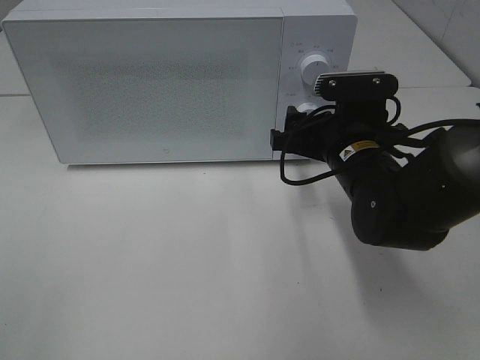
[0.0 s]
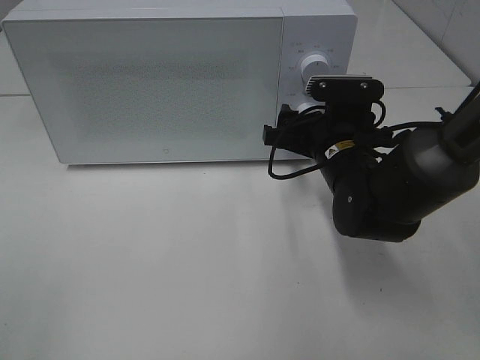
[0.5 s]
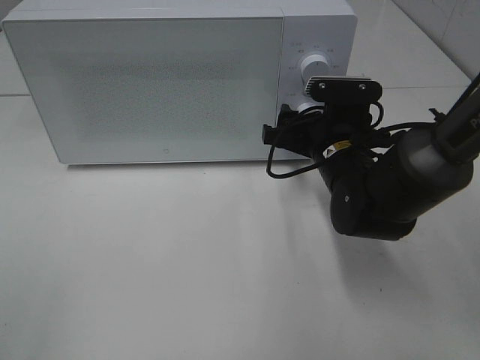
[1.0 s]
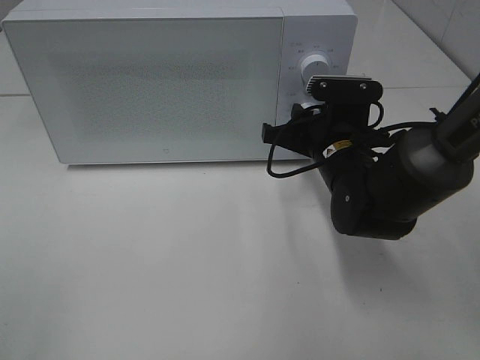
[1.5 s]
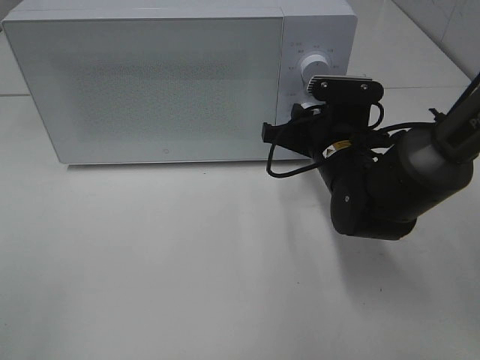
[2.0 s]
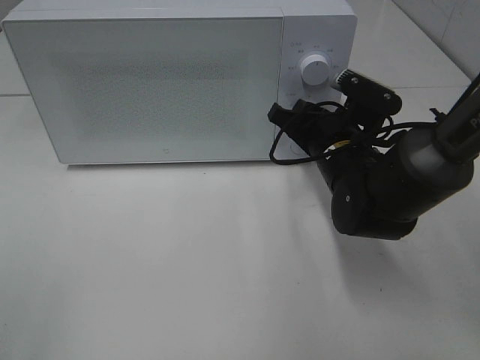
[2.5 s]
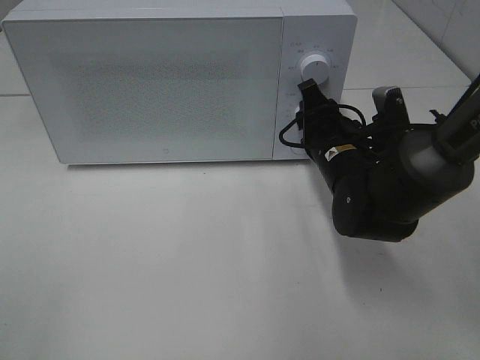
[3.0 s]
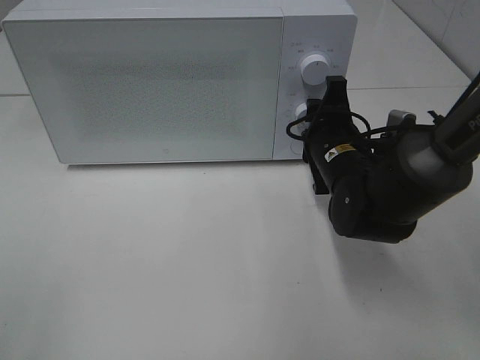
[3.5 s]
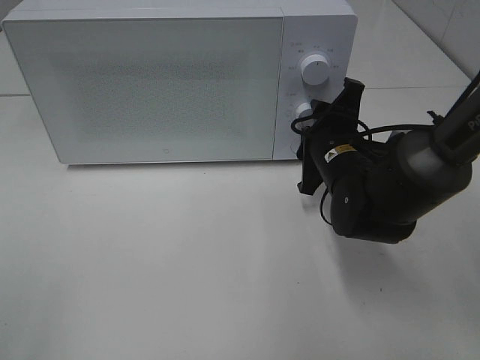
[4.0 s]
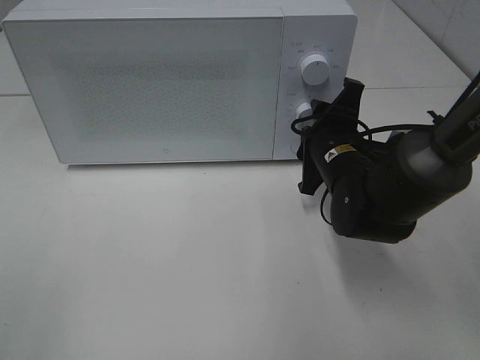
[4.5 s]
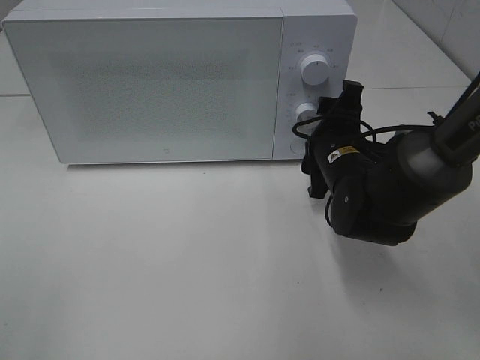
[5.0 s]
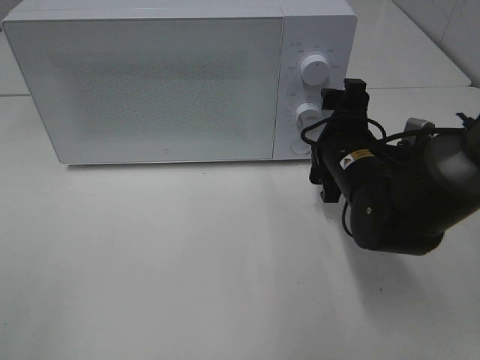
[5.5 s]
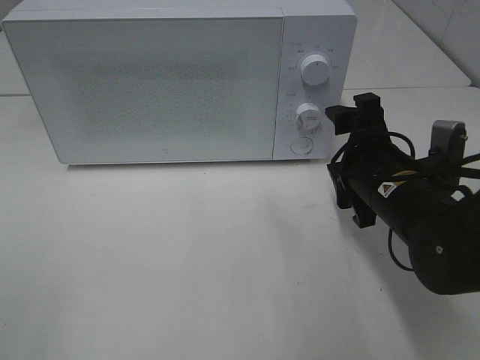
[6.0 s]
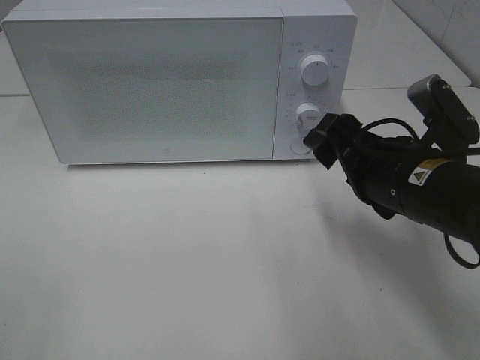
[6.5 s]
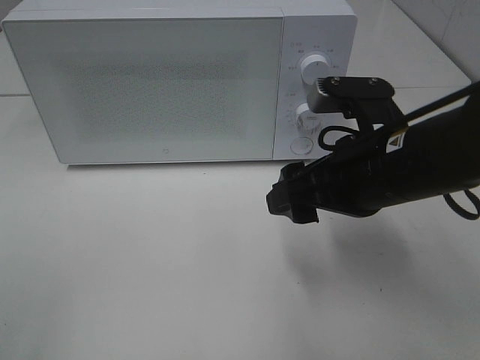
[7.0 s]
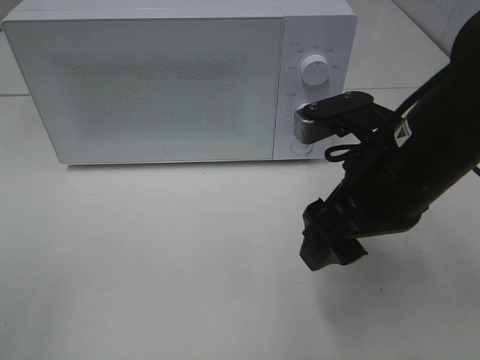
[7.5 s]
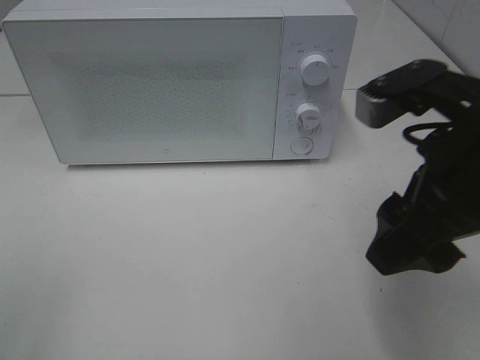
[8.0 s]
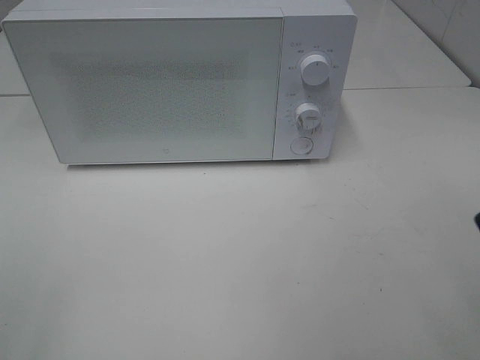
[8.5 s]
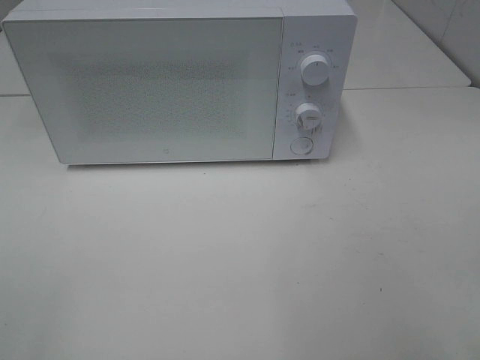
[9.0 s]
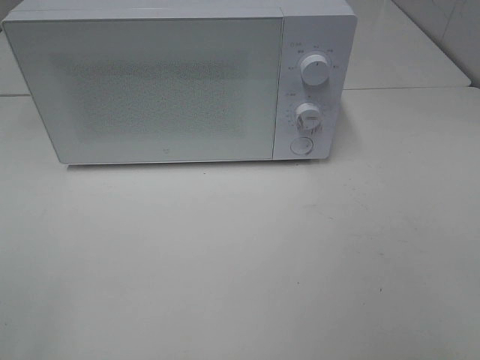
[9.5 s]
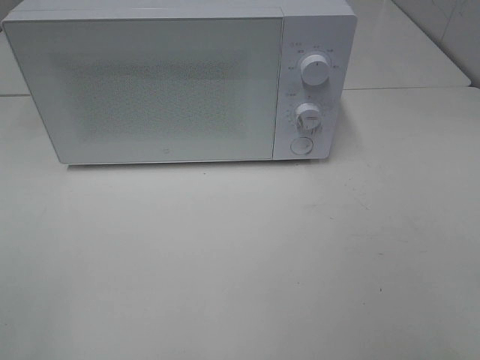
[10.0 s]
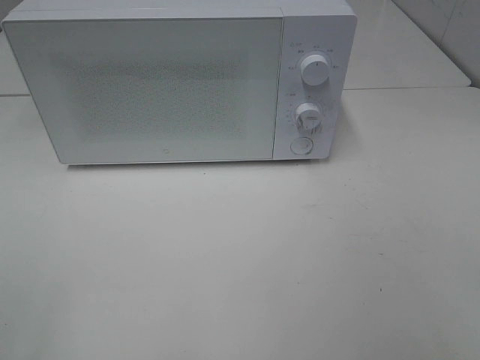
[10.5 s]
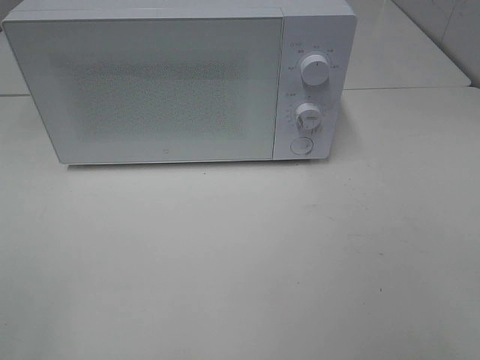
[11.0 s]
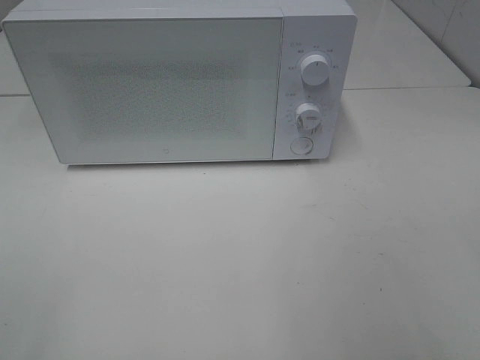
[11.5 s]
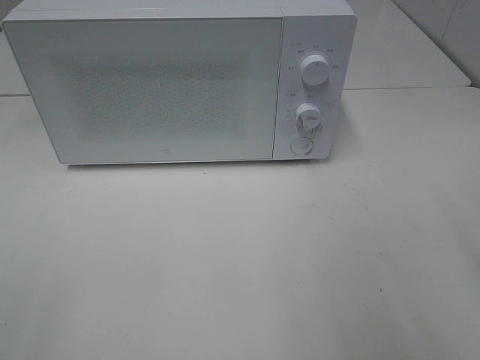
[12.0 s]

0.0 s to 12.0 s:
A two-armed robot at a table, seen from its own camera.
Task of the whole recording: Heat Sandwich.
Step, 0.0 to 5.0 s: Right hand: twist timer button.
0.0 to 2.0 s: The right gripper closes up.
4.0 to 6.0 s: The right gripper is displaced backward by roughly 5 cm, and opens up.
6.0 to 8.0 s: The right gripper travels upward and backward by roughly 15 cm.
8.0 to 10.0 s: The right gripper is displaced backward and to the right by some 20 cm.

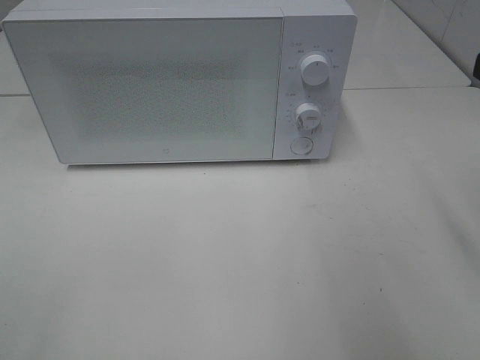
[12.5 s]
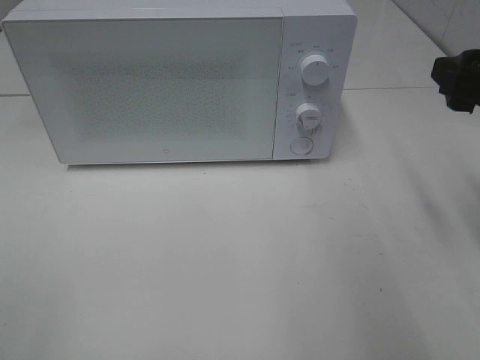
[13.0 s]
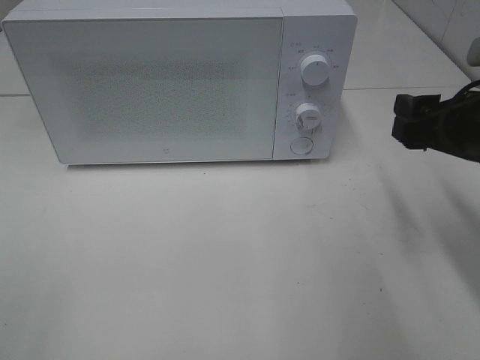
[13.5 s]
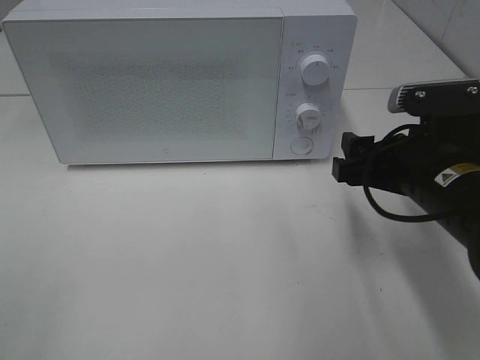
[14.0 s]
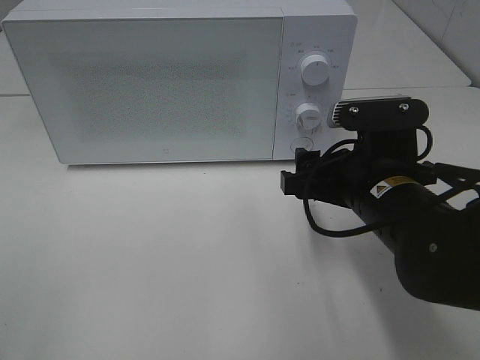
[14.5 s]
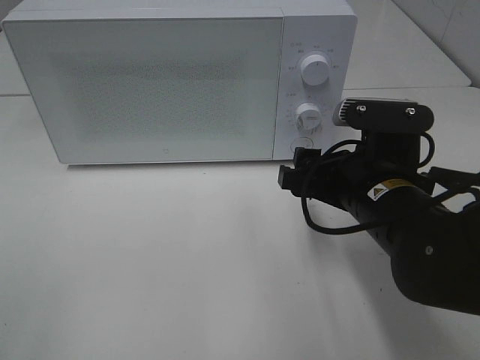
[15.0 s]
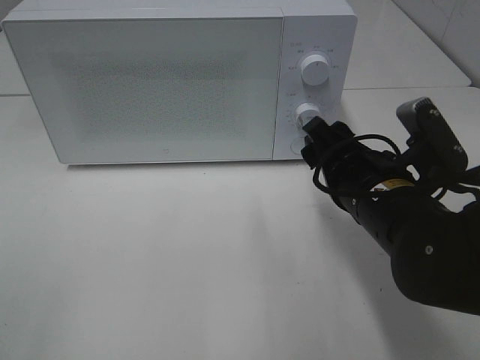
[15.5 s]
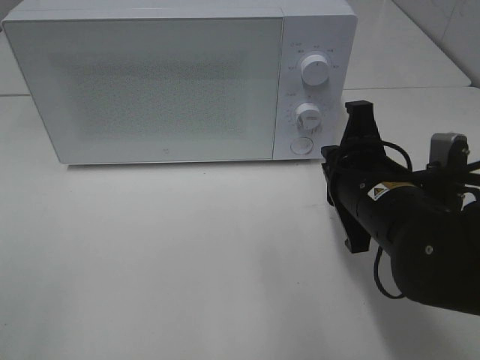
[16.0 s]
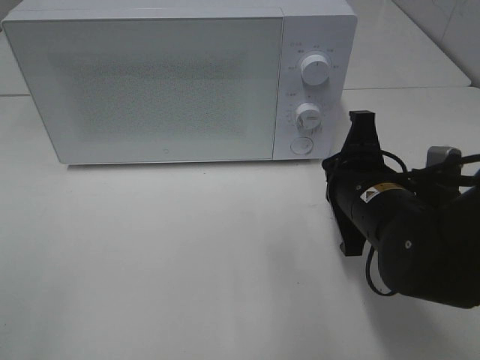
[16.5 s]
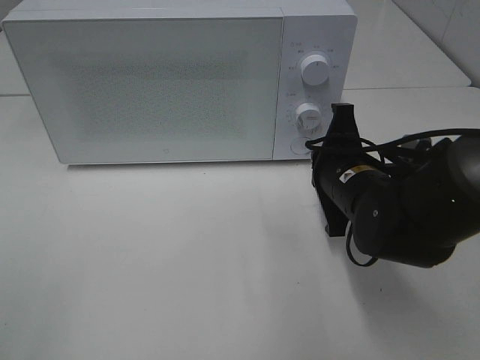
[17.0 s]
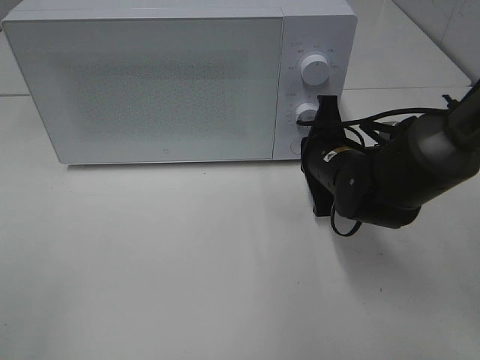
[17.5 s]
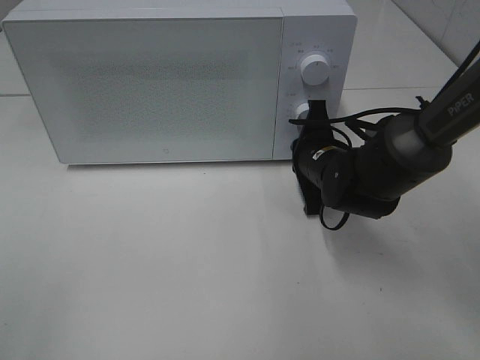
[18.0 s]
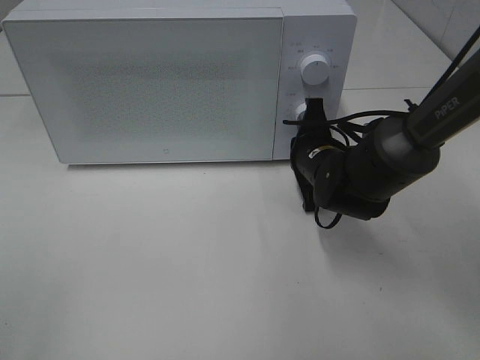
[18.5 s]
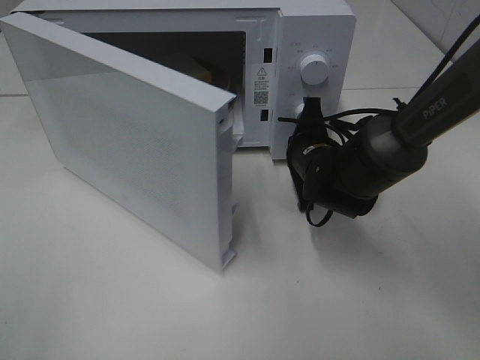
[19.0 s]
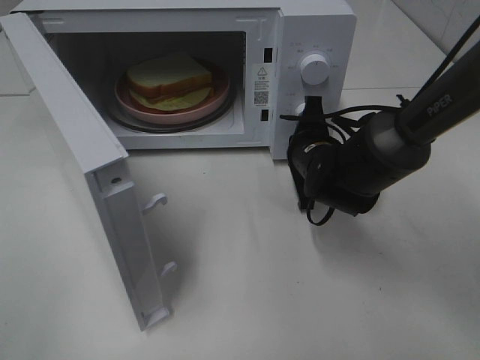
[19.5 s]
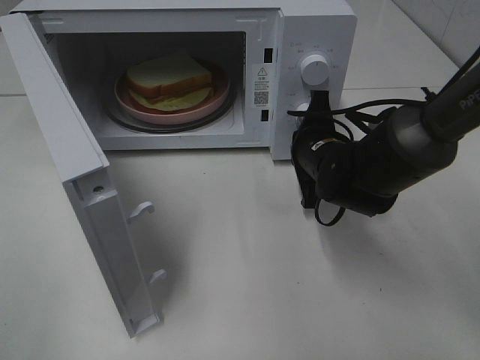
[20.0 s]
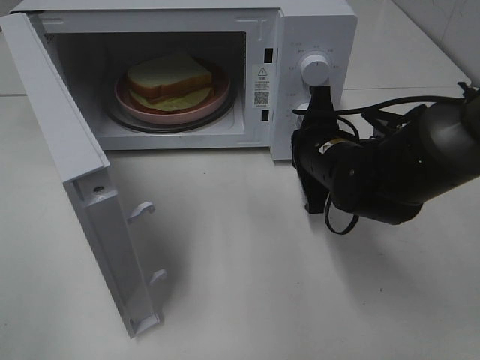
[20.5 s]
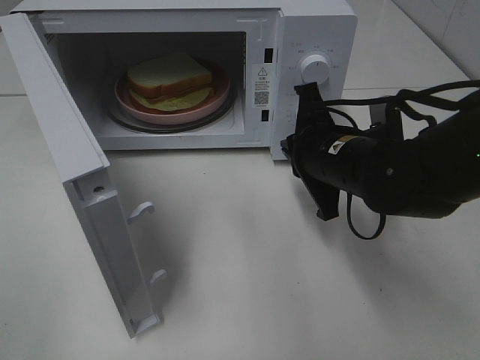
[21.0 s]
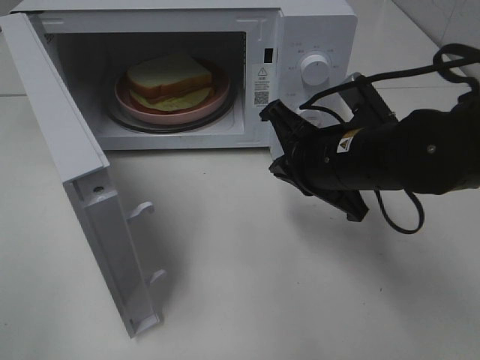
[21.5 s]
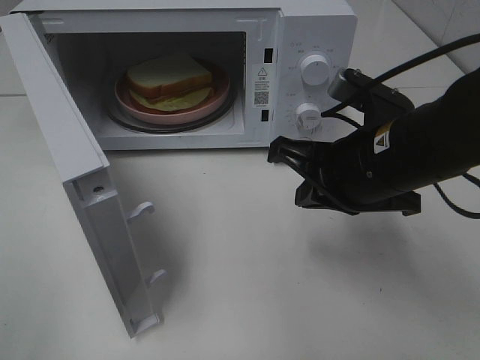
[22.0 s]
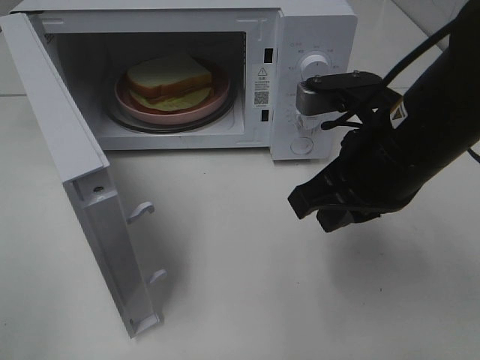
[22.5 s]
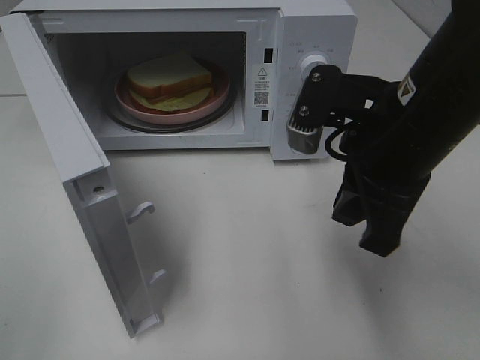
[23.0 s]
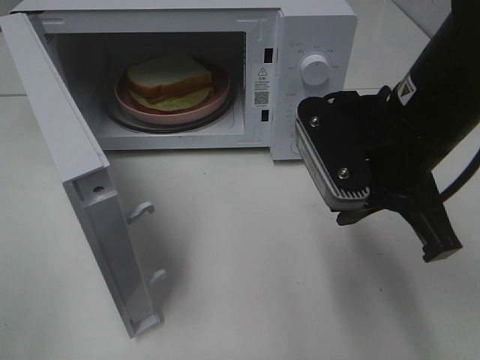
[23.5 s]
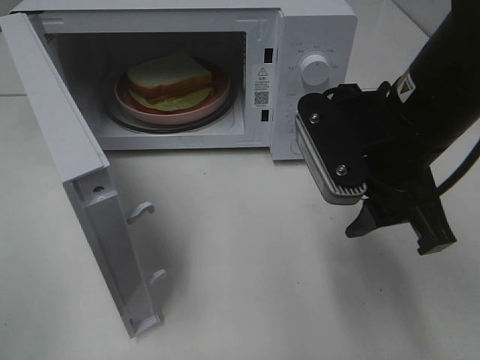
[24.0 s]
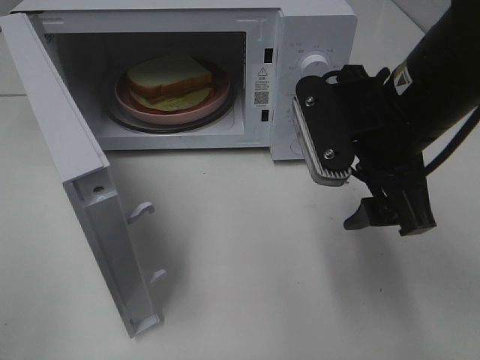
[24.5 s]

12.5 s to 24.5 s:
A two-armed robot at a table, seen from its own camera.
Task of the whole recording: Heat Sandwich.
Step, 12.5 to 19.5 s: Right hand: press the switch.
12.5 to 14.5 s: The right gripper shifts roughly 20 cm downward and to the left.
14.5 to 16.5 s: The right gripper closes up.
16.5 to 18.5 s: The right gripper heads forward, covering about 10 cm.
18.5 to 20.5 s: The right gripper changes place by some 5 cm.
20.5 to 22.5 s: The right gripper travels upward and backward by about 15 cm.
22.5 to 24.5 s: The right gripper opens up.

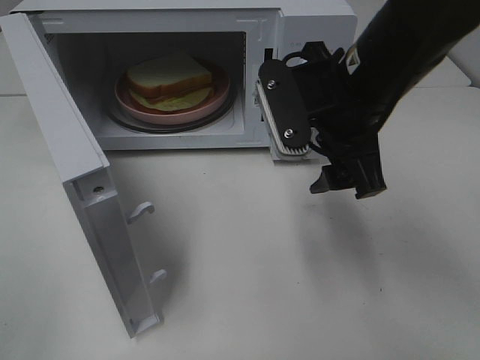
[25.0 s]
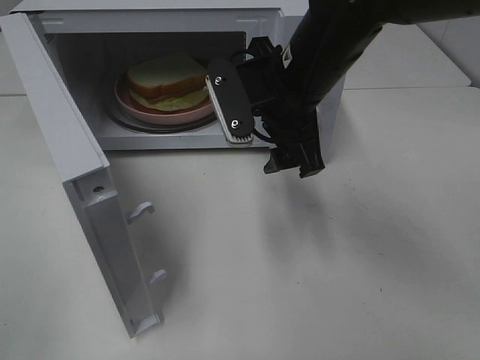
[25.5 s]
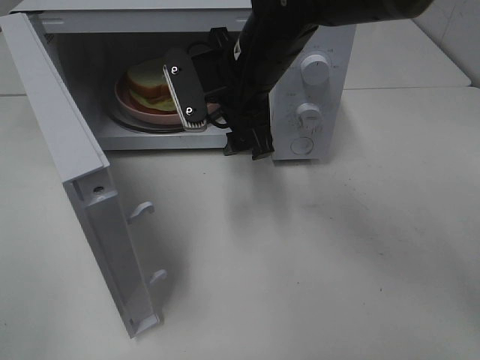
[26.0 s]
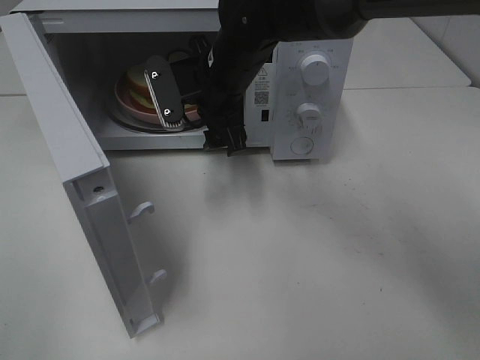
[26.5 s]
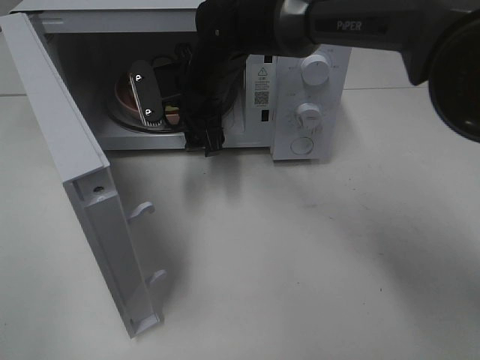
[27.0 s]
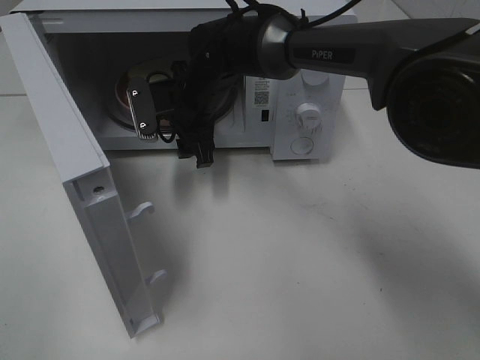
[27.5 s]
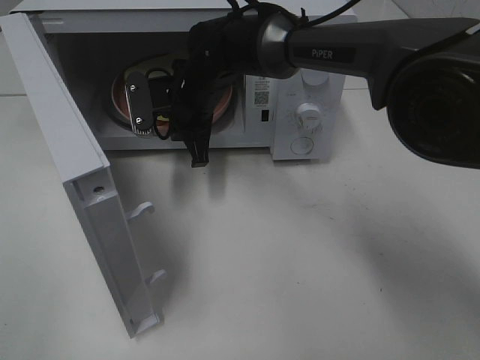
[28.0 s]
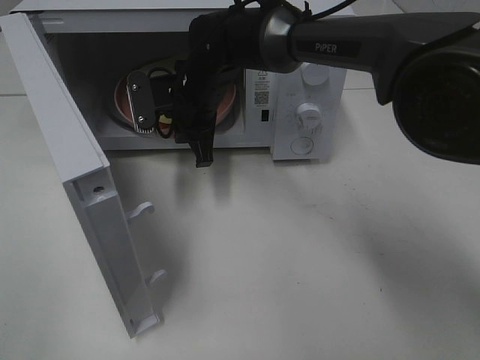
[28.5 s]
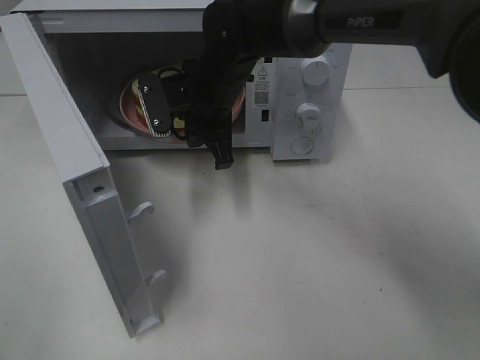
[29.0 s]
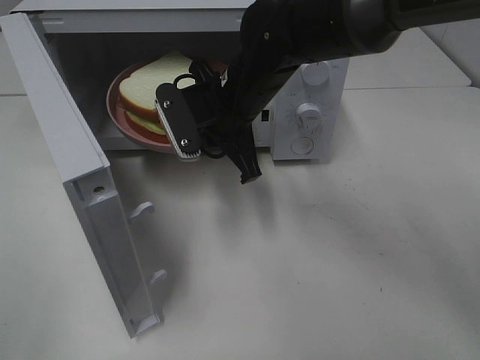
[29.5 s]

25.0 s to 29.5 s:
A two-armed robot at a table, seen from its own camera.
Task of the whole recording: Heat Sandwich.
Step, 25.0 to 28.0 s: Right hand: grab the plate with the sandwich.
25.0 to 27.0 s: The right gripper is displaced forward, to the left and downward by roughly 20 cm.
27.0 to 29.5 s: The right gripper travels backward by some 5 cm, and closes up.
